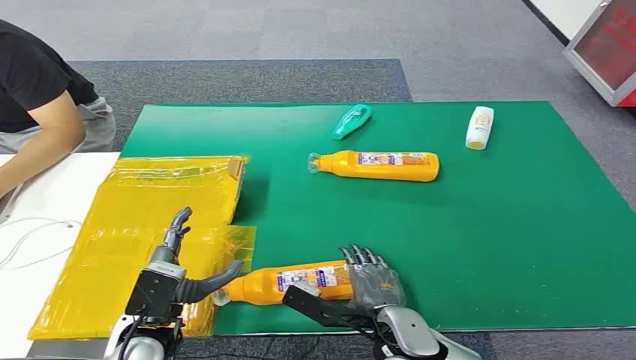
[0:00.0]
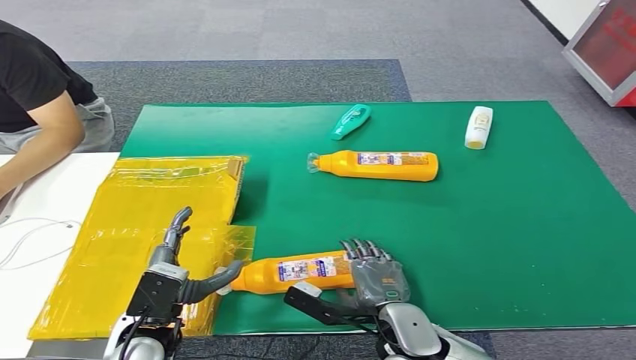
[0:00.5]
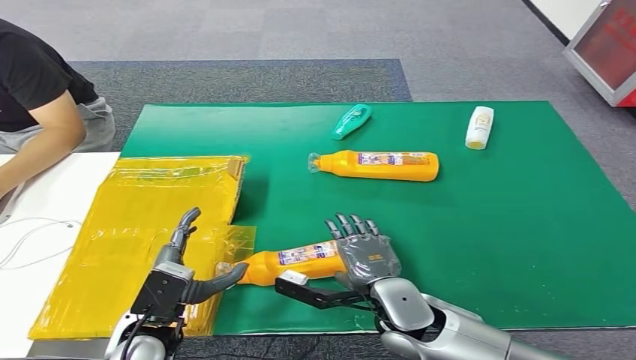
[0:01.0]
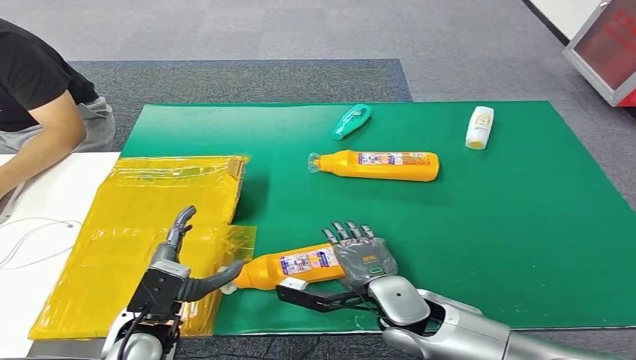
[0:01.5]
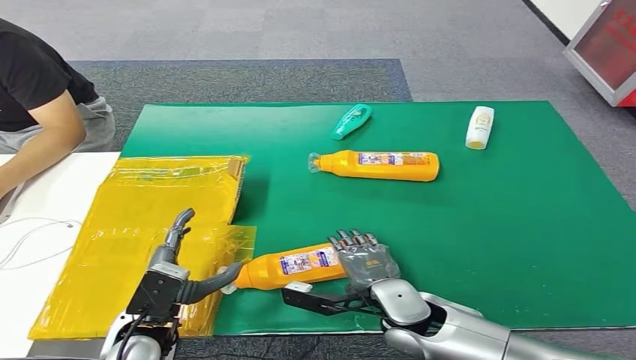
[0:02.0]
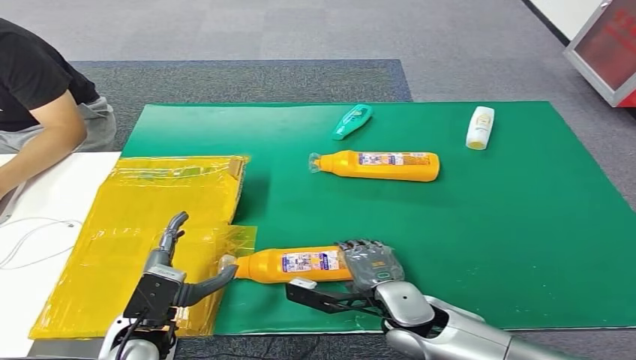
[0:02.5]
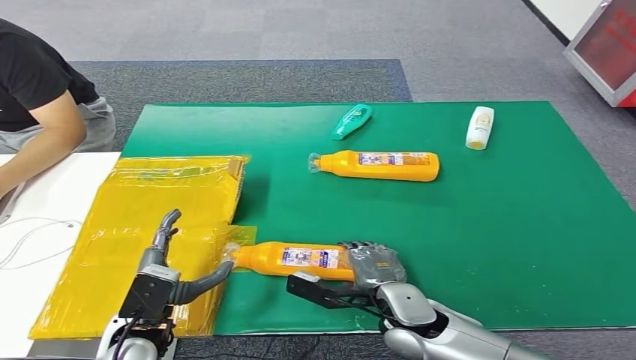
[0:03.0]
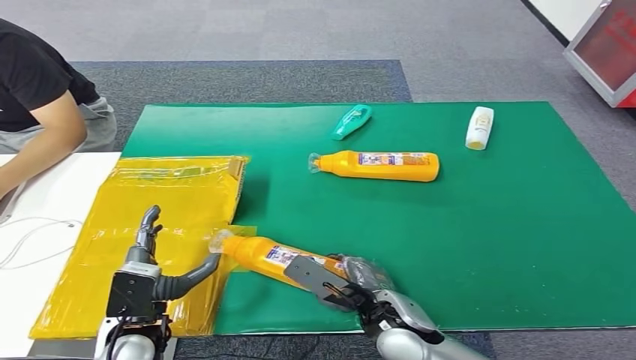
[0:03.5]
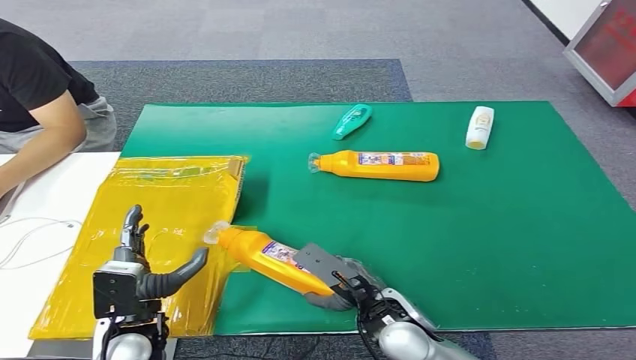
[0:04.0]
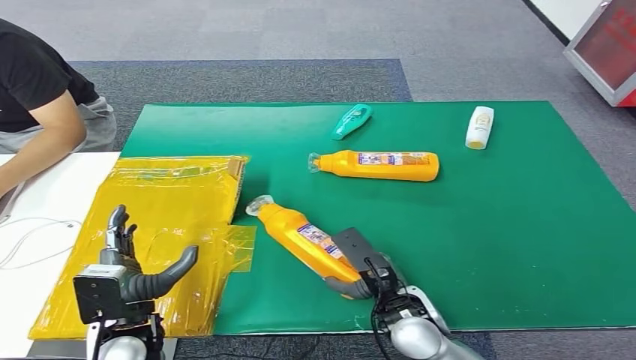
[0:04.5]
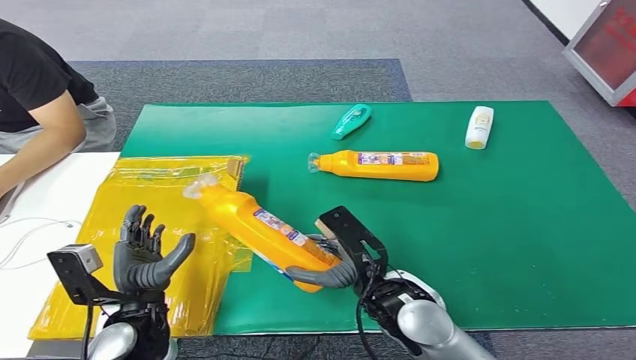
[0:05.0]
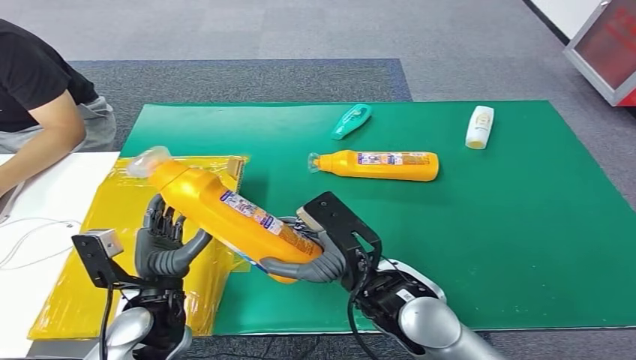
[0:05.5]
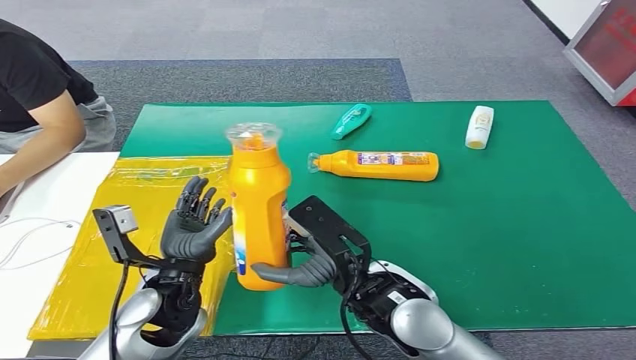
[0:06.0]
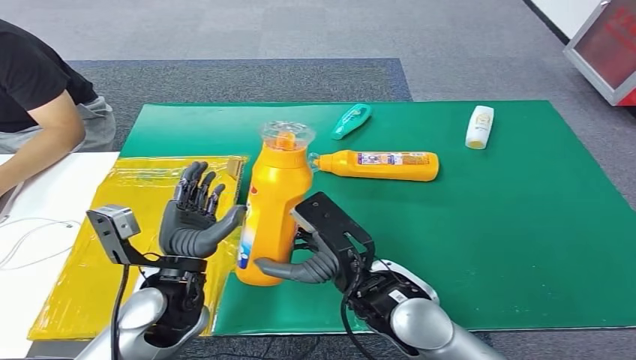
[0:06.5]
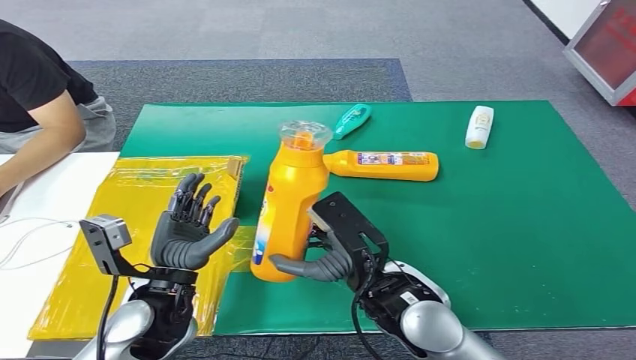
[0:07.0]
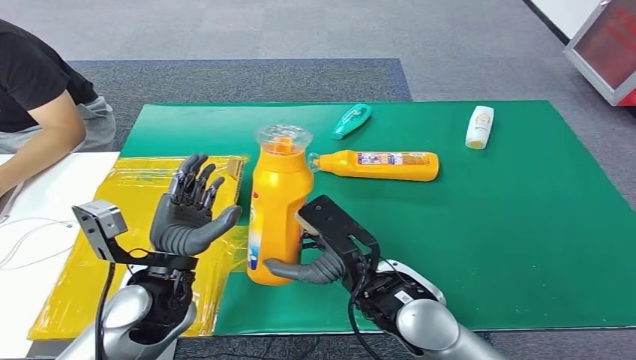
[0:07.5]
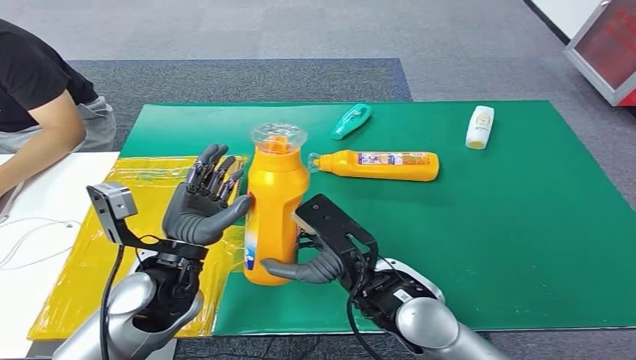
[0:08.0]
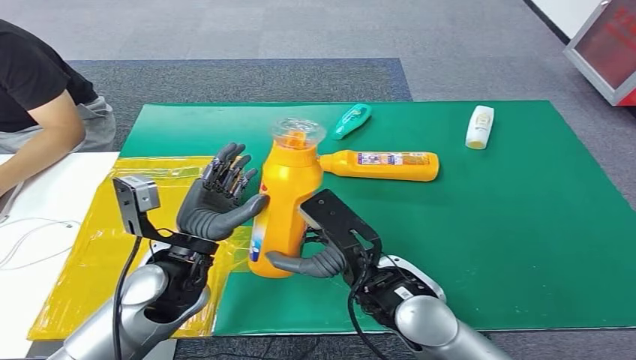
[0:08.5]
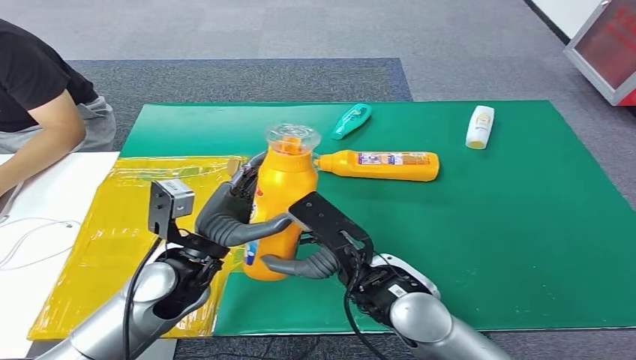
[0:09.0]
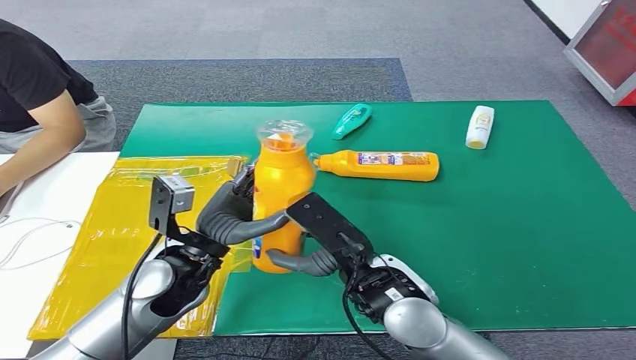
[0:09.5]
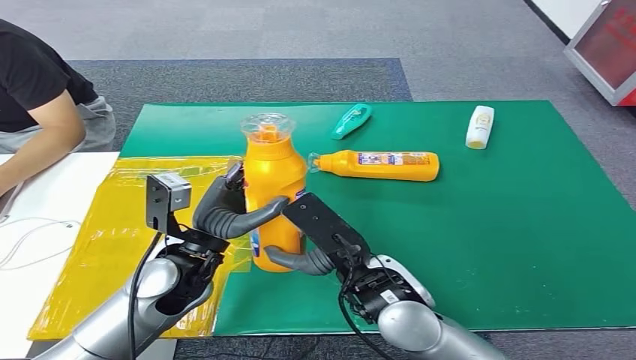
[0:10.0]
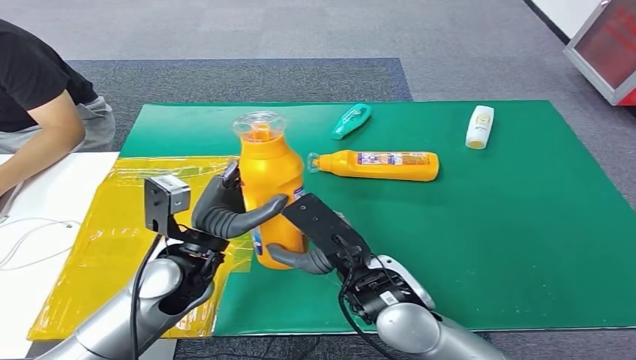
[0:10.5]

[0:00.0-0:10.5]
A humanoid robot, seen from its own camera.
Step, 0:00.0 to 0:05.0: Pick up the bottle from the table.
Step, 0:05.5 to 0:10.5: Turn the bottle to the front side.
0:04.0 to 0:06.5: The right hand moves upward, about 10 cm. The left hand shifts approximately 10 cm upward, to the right and forward.
0:06.5 to 0:08.5: The hands stay close to where they were, moving slightly.
0:08.5 to 0:10.5: The hands move only a little.
